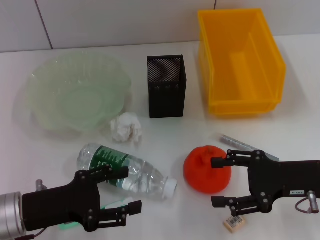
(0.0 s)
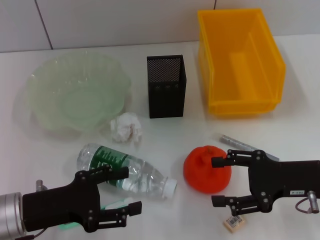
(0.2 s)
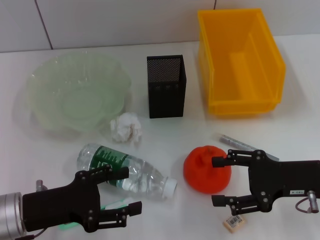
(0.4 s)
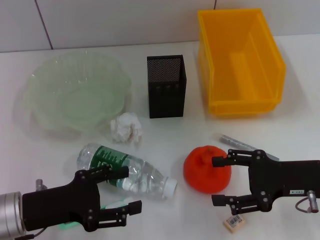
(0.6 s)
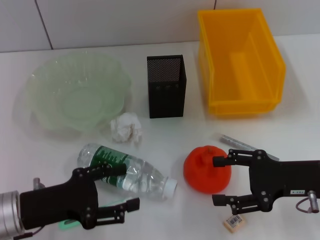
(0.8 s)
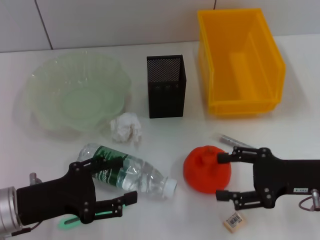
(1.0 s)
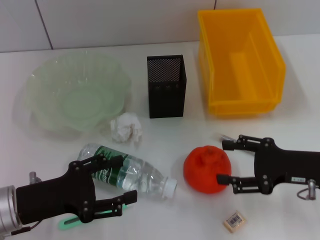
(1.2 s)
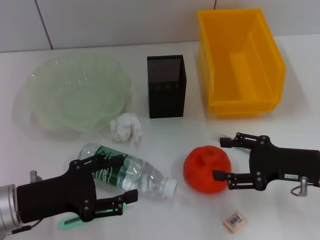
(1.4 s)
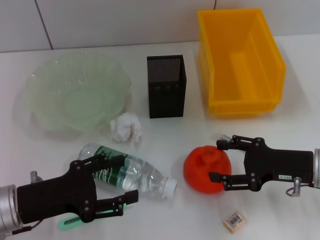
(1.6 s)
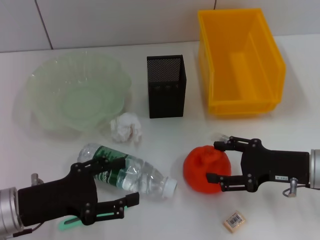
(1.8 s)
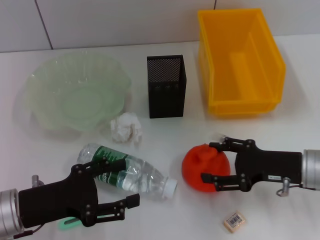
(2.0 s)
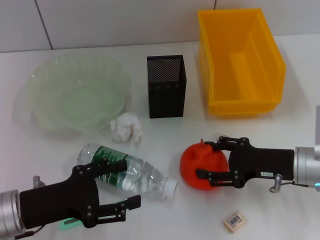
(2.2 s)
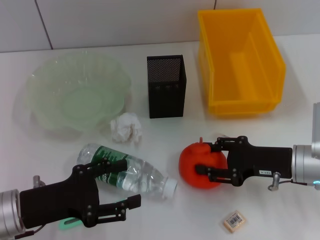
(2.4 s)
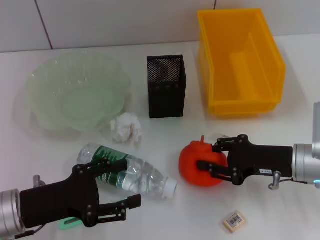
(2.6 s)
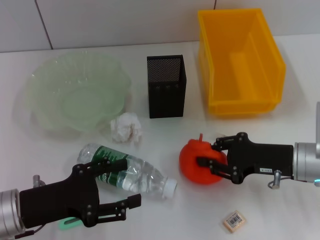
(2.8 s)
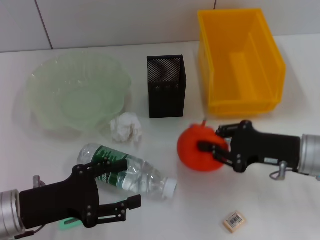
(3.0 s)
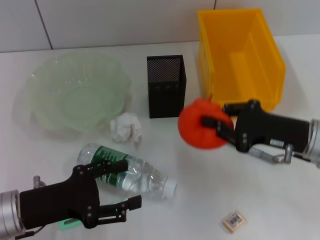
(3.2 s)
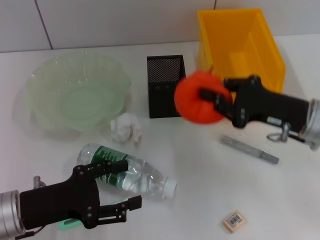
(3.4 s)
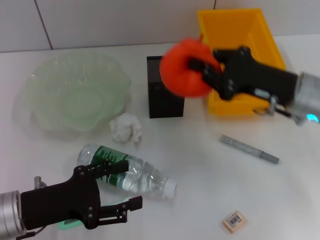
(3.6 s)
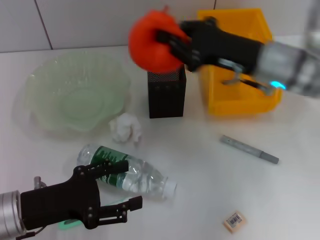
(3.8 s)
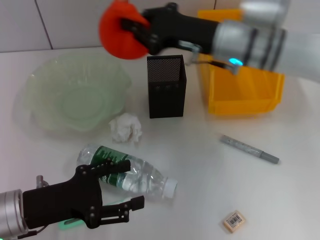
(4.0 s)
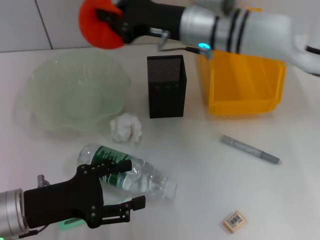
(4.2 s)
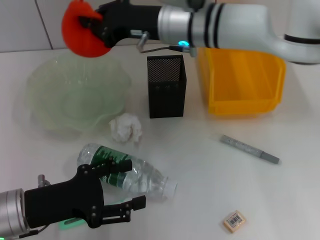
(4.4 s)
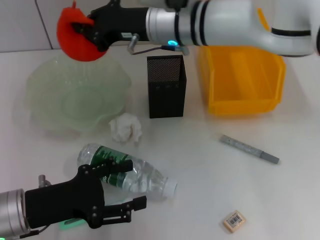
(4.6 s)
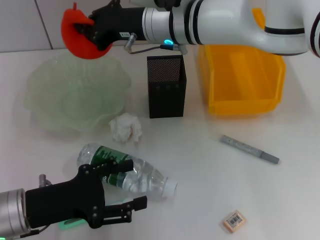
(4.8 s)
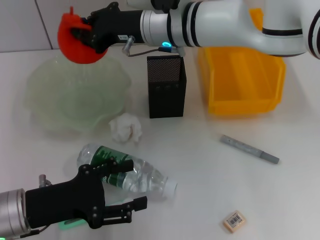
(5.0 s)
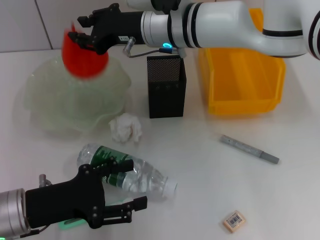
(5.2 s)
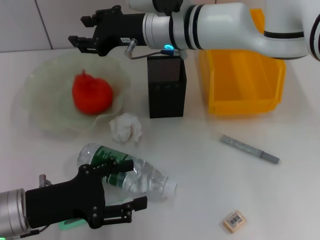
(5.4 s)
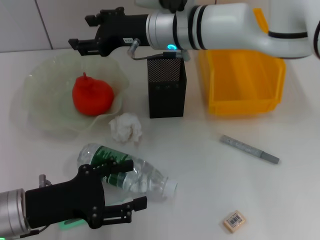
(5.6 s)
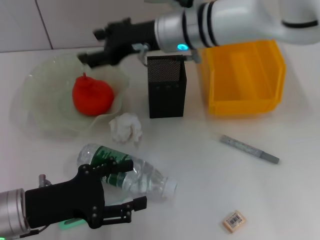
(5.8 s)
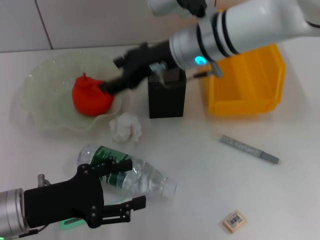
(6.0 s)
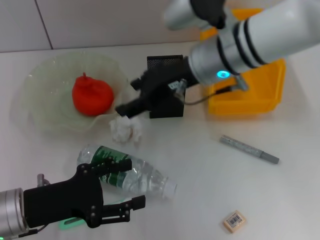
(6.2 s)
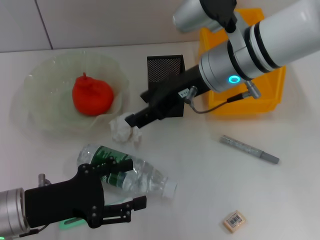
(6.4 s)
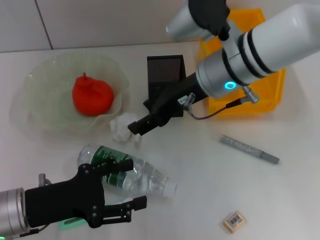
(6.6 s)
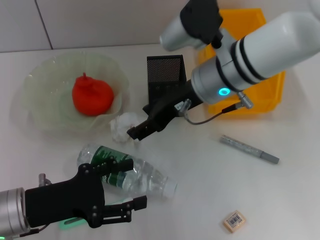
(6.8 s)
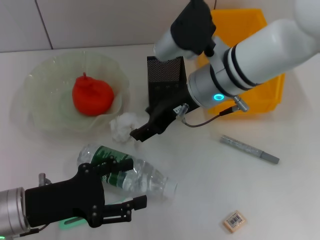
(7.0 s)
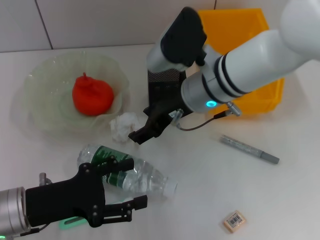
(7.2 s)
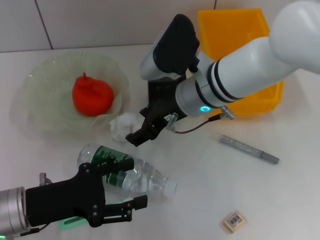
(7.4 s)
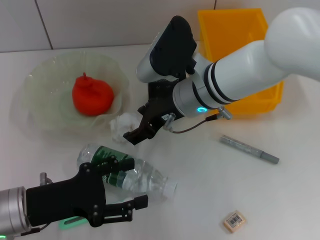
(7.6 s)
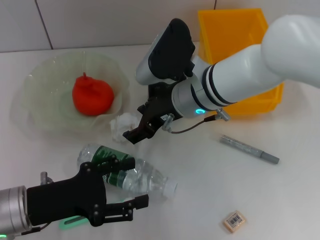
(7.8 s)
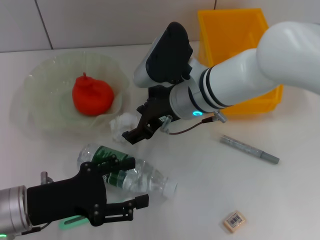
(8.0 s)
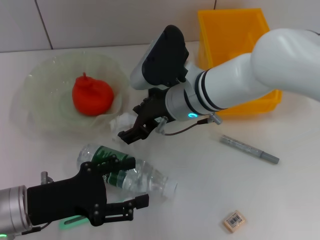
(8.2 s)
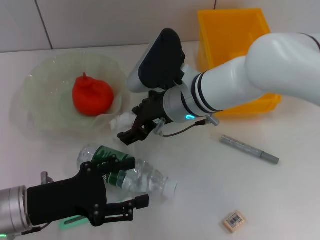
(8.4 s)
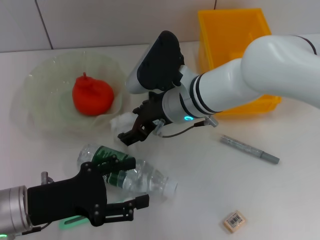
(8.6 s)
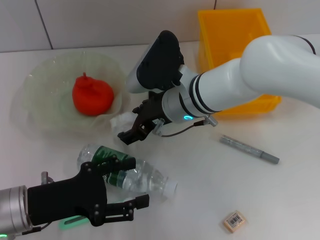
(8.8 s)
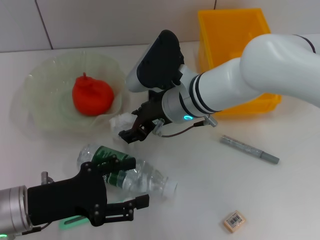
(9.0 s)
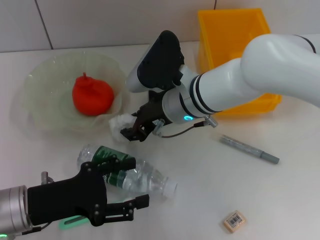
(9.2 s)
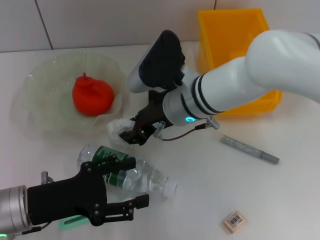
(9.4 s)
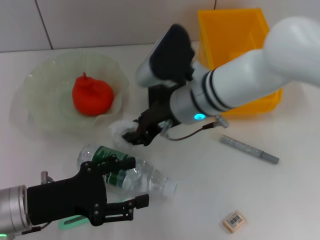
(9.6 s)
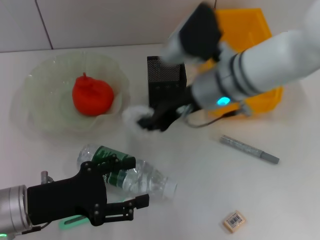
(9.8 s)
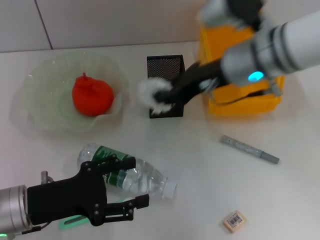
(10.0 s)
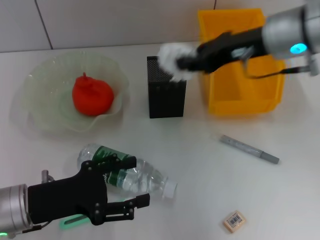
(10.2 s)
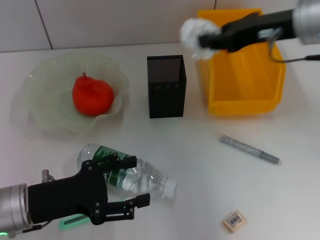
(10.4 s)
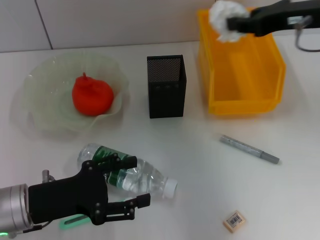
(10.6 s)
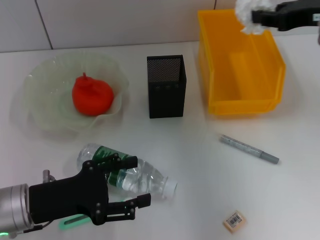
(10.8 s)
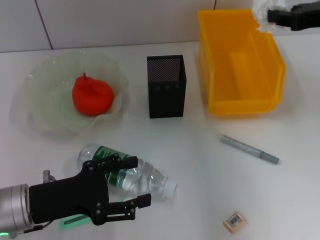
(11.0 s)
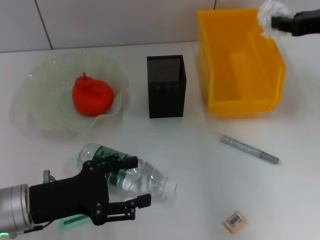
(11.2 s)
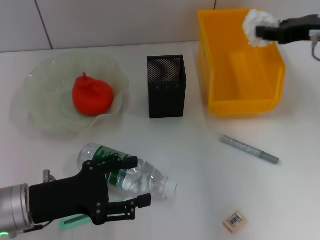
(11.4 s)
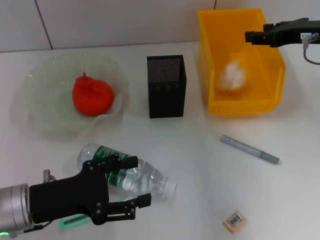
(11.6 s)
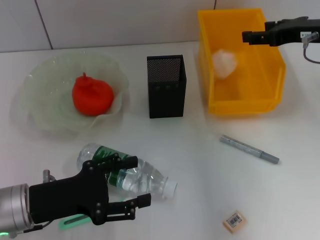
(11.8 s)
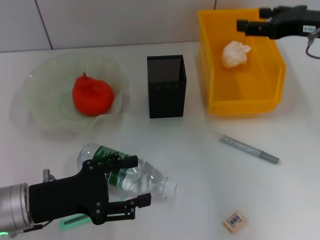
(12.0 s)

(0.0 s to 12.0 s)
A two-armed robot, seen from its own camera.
Step, 0.0 s - 2.6 s: Grab the orange with the right hand.
Step, 2.8 s - 5.4 s: Place the orange into the fruit bowl with the right hand.
Step, 5.8 s - 9.2 s: Grab the paper ball with the right hand.
Step, 9.4 s - 11.8 s: Place the paper ball into the trash can with the right hand.
0.0 s - 1.6 s: There are only small adjustments of the grippers.
1.6 s - 3.0 s: The right gripper closes up.
3.0 s - 4.4 s: The right gripper goes approximately 25 cm to the left, forward and upward, and closes.
4.4 s - 6.0 s: The right gripper opens its fingers.
6.0 s - 7.6 s: The right gripper ends up some 5 cm from where it was.
7.6 s - 9.0 s: The grippers stay close to where they were, moving slightly.
9.0 s - 10.4 s: The right gripper shifts about 20 cm to the right and upward, and closes up.
10.4 s - 12.0 s: The right gripper moves to the right, about 5 cm, and opens its fingers.

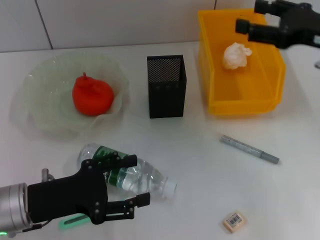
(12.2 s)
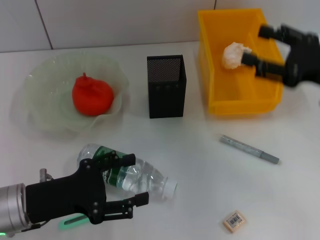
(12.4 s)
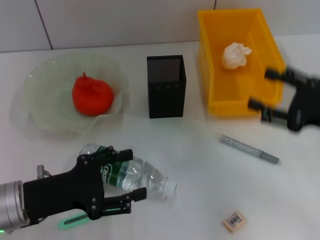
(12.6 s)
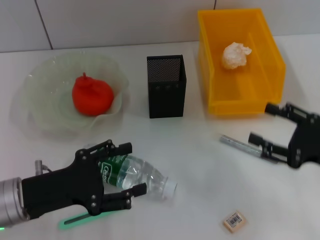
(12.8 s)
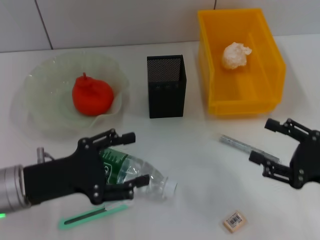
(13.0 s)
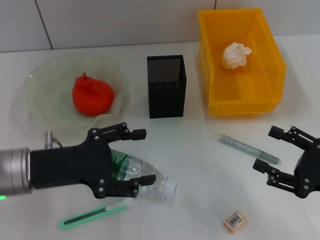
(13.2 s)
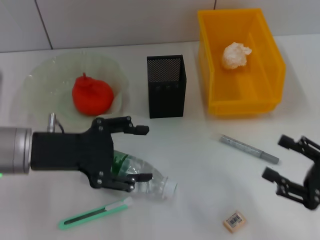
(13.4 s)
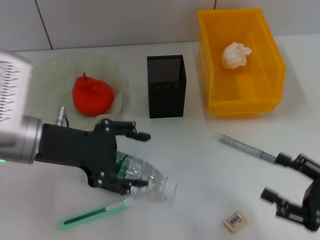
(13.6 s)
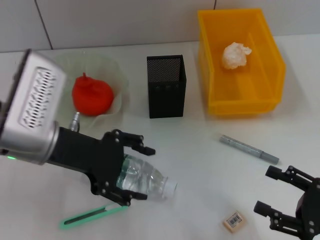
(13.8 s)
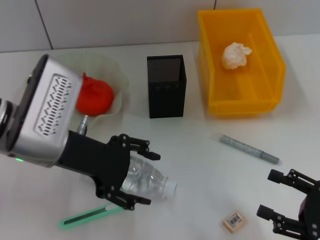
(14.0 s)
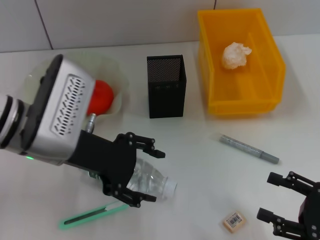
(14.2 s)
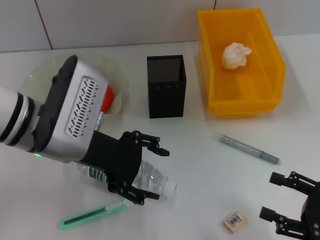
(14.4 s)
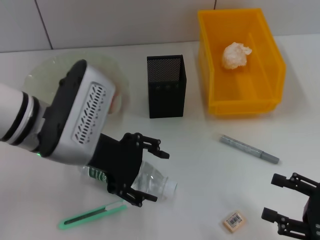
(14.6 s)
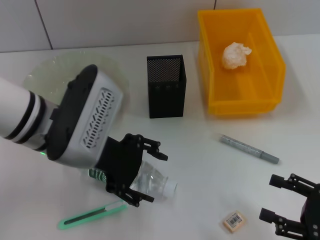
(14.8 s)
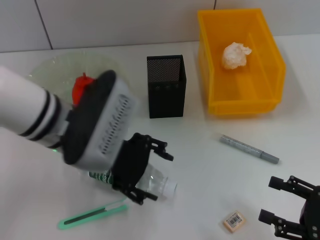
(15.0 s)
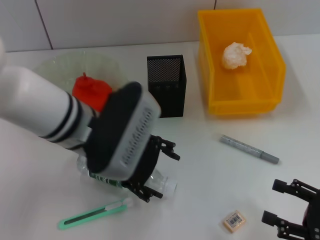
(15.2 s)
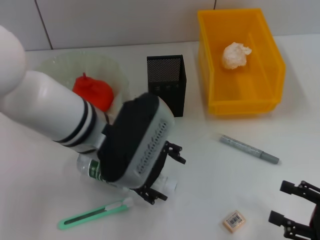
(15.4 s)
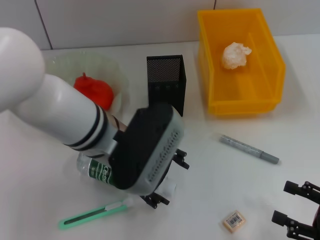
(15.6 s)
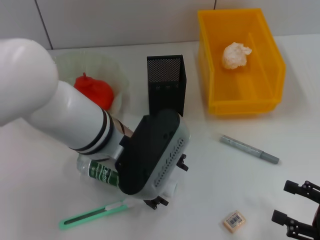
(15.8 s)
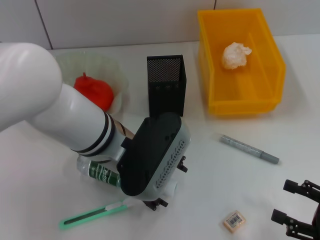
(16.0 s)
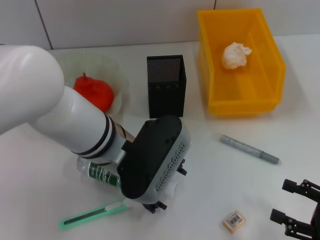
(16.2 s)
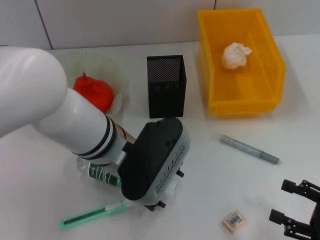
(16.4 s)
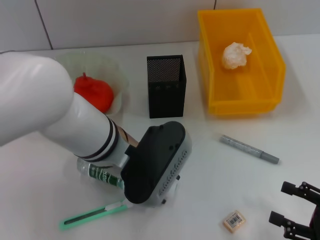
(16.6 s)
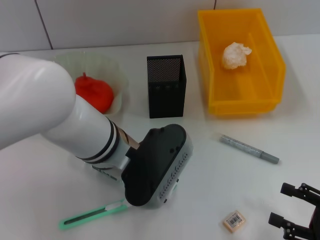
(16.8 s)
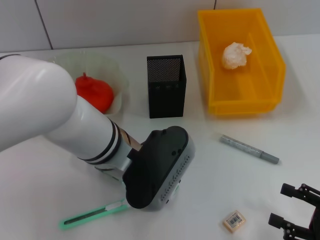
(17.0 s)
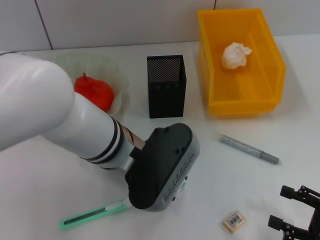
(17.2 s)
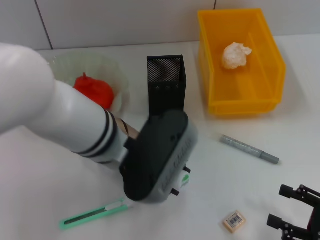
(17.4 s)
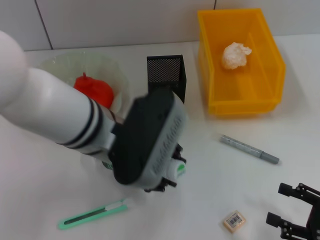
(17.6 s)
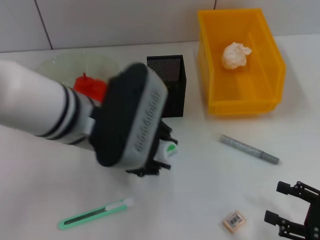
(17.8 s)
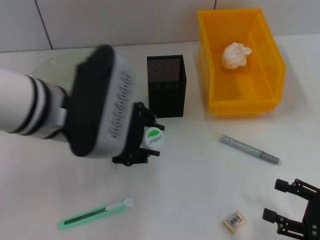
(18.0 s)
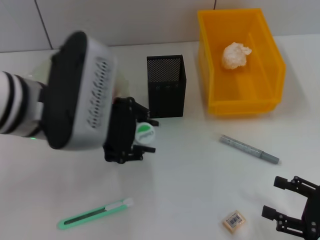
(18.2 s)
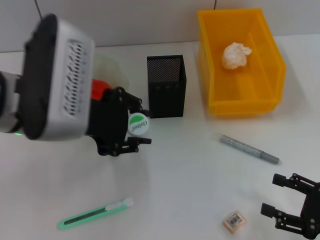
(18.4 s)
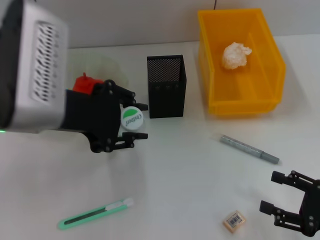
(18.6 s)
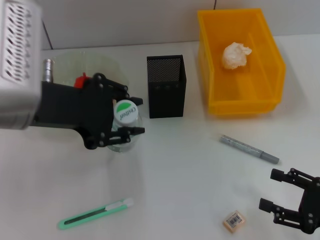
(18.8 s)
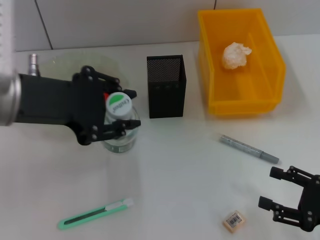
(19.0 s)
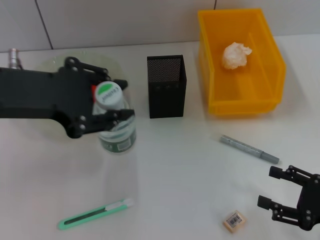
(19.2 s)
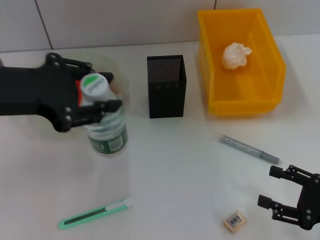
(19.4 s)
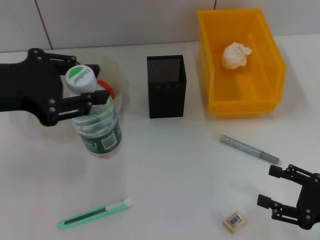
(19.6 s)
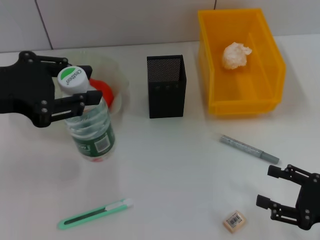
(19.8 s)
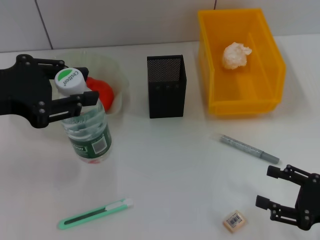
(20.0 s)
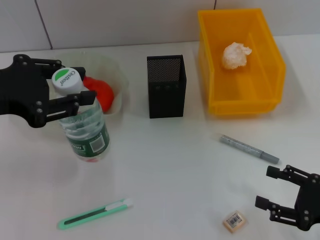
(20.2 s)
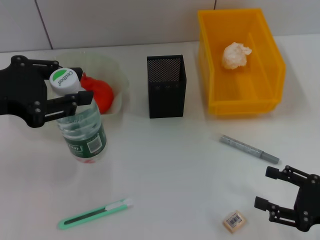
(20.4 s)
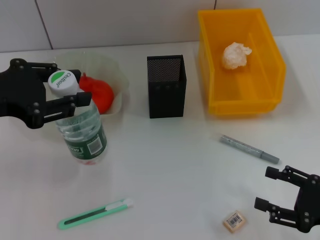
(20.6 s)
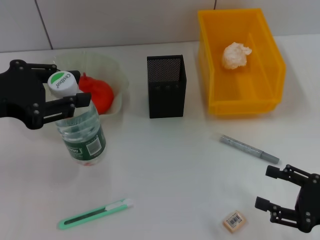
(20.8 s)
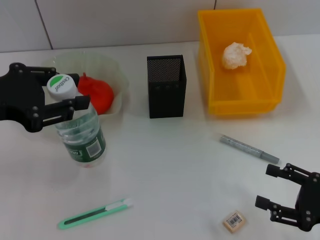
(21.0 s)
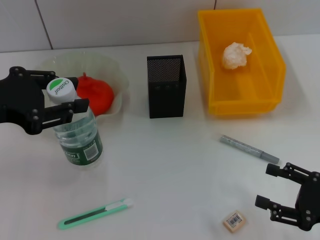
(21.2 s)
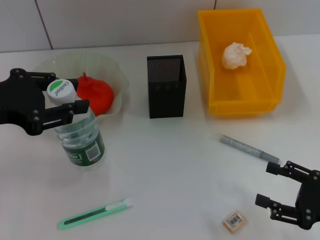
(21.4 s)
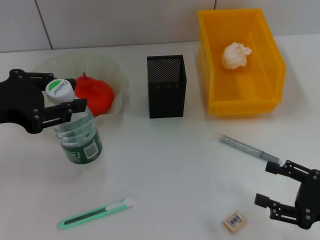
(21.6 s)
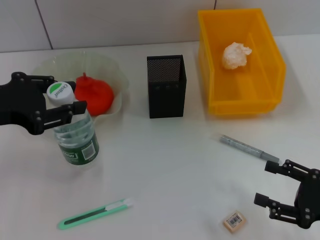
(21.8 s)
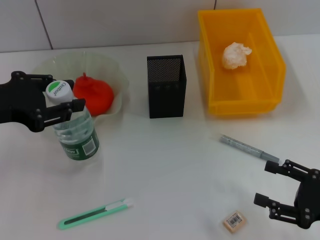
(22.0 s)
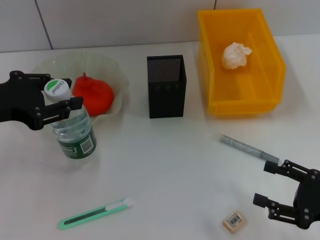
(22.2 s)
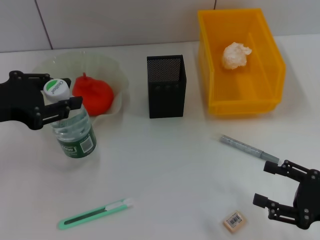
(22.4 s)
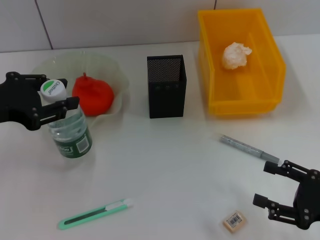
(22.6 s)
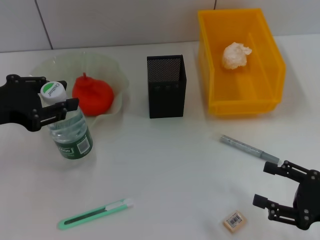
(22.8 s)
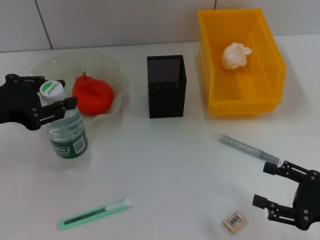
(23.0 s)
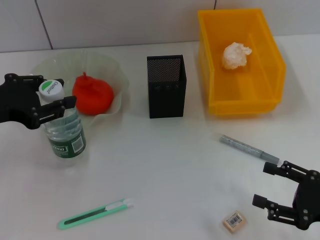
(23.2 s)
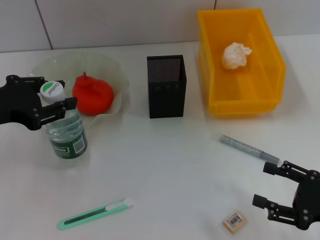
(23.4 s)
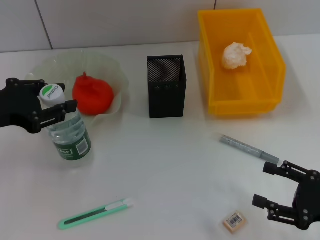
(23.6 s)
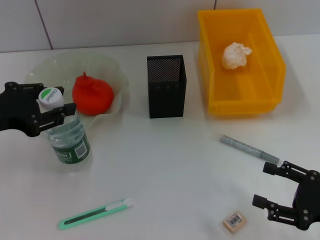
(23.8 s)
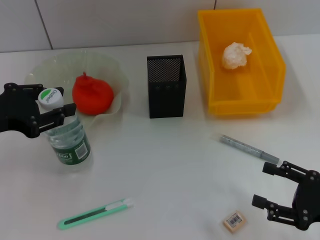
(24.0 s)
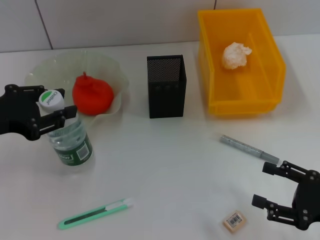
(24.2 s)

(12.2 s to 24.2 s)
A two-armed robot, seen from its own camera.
Step, 12.2 s - 16.6 s: Grab the water bottle with the left hand.
12.2 s - 13.8 s: The right gripper shifts roughly 25 cm backward and downward, while the left gripper moves upward and forward, approximately 10 cm.
13.8 s - 15.2 s: The left gripper is displaced to the right by approximately 5 cm.
15.2 s - 16.6 s: The left gripper shifts by approximately 5 cm.
16.6 s - 18.2 s: The left gripper travels upward and to the left by some 10 cm, and closes.
18.2 s - 19.8 s: The left gripper heads to the left, covering some 10 cm.
19.8 s - 21.2 s: There are only small adjustments of the grippers.
21.2 s - 24.2 s: The grippers move only a little.
